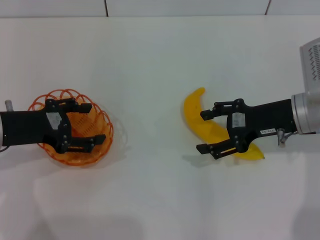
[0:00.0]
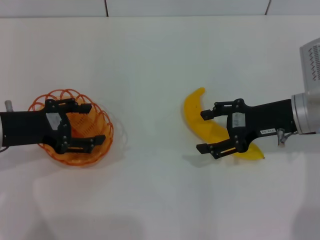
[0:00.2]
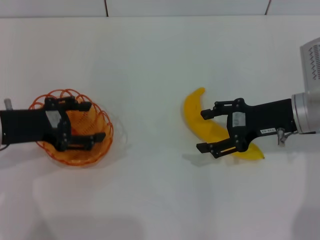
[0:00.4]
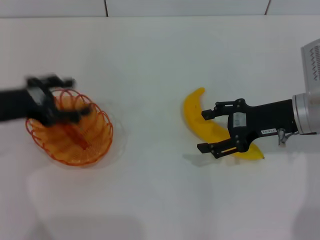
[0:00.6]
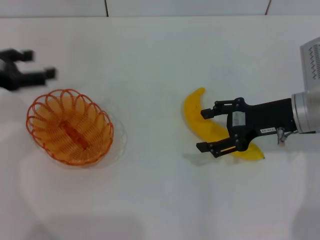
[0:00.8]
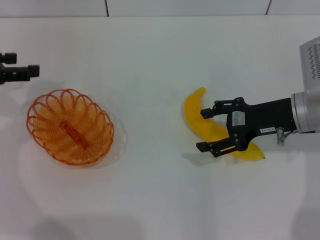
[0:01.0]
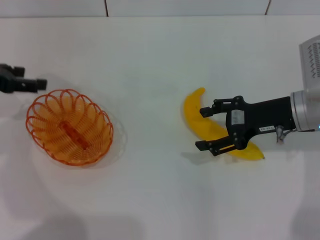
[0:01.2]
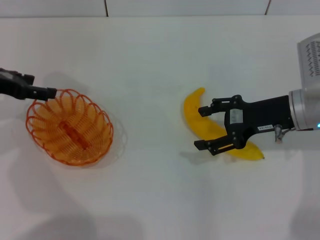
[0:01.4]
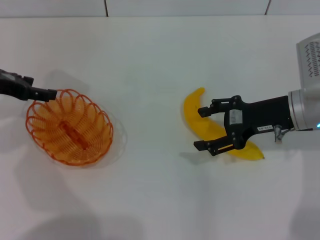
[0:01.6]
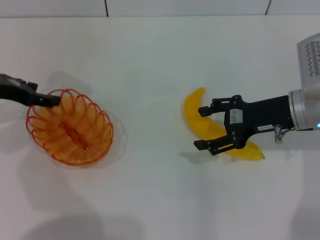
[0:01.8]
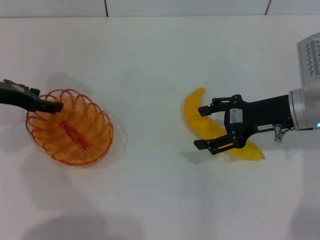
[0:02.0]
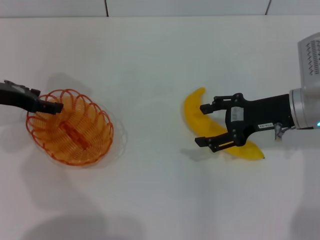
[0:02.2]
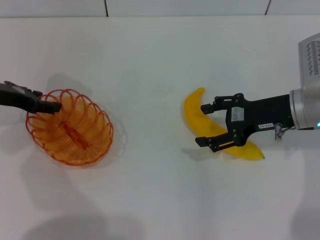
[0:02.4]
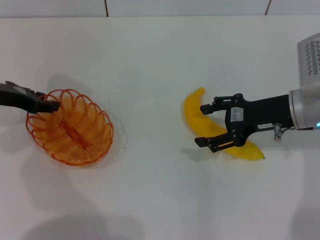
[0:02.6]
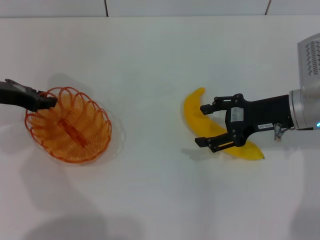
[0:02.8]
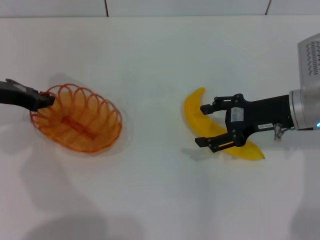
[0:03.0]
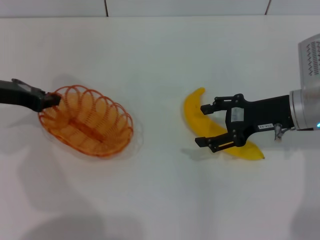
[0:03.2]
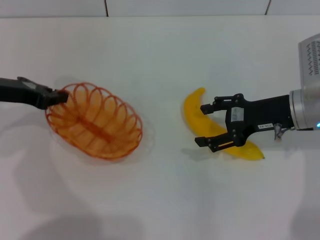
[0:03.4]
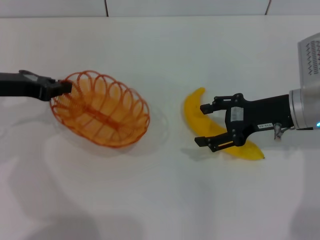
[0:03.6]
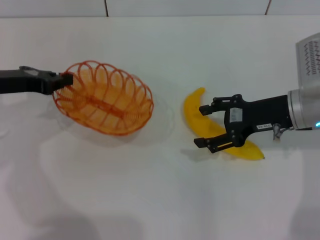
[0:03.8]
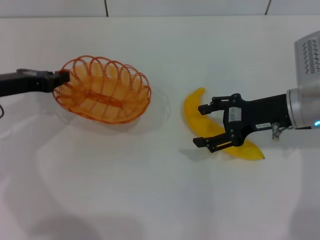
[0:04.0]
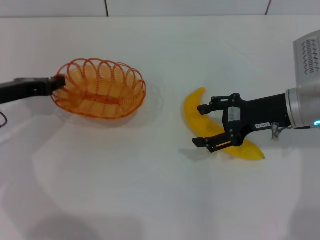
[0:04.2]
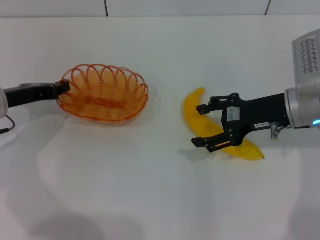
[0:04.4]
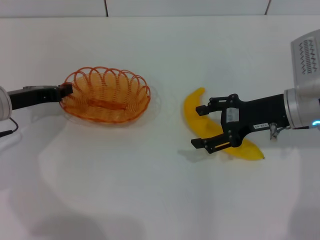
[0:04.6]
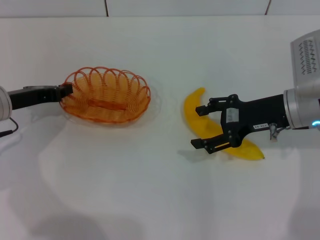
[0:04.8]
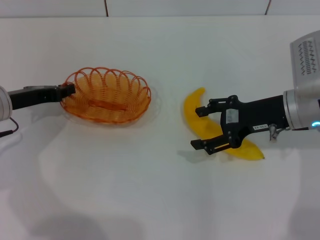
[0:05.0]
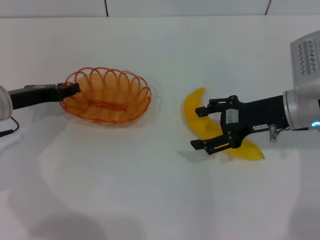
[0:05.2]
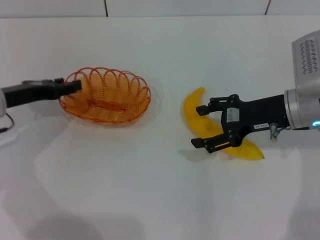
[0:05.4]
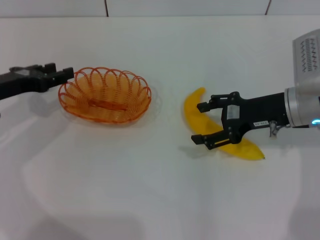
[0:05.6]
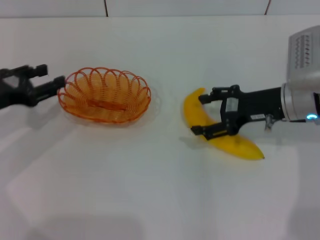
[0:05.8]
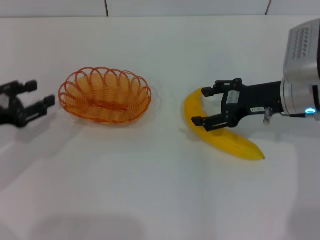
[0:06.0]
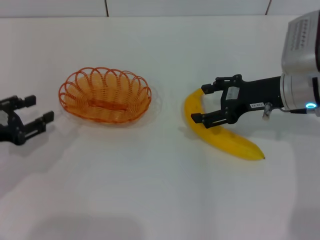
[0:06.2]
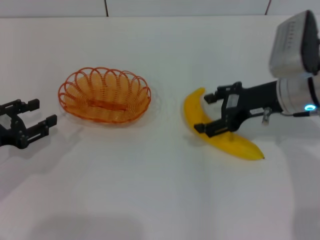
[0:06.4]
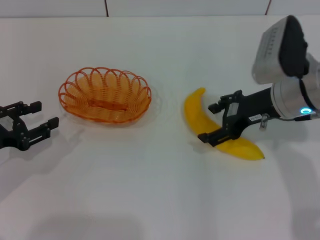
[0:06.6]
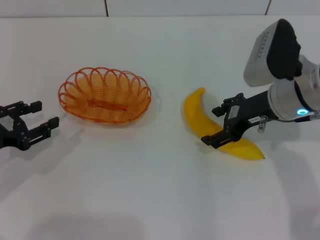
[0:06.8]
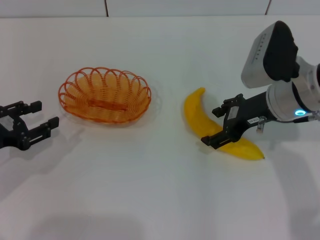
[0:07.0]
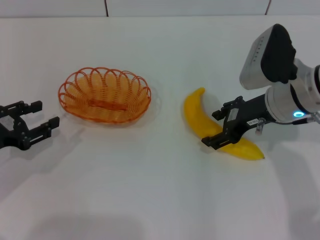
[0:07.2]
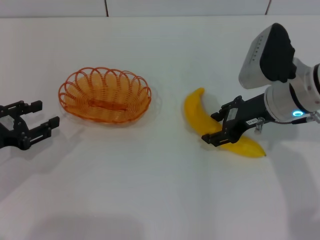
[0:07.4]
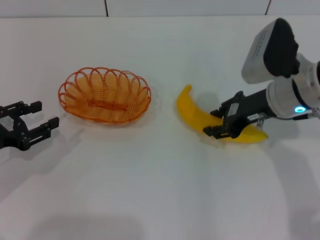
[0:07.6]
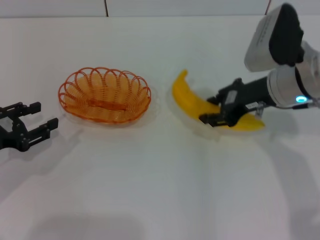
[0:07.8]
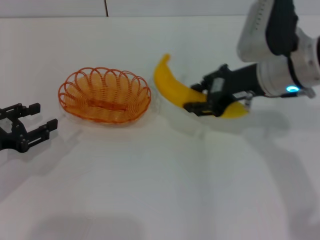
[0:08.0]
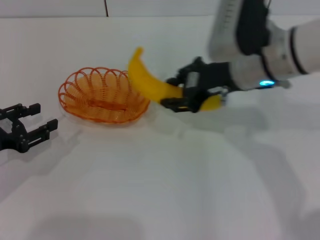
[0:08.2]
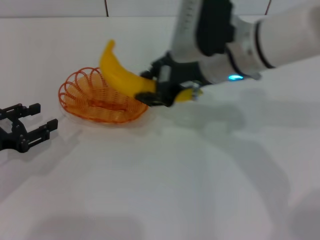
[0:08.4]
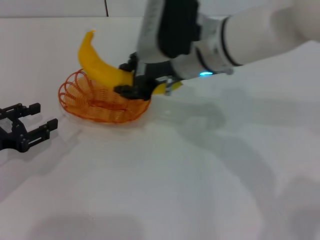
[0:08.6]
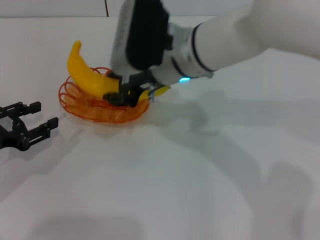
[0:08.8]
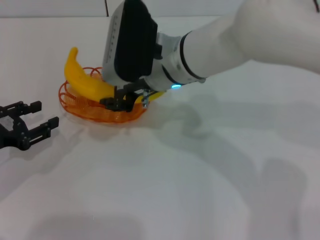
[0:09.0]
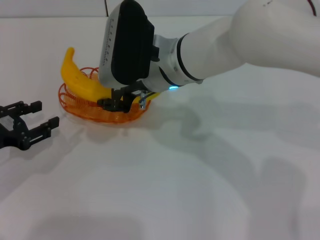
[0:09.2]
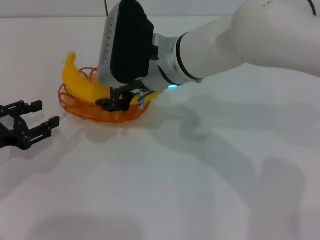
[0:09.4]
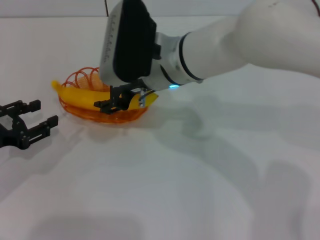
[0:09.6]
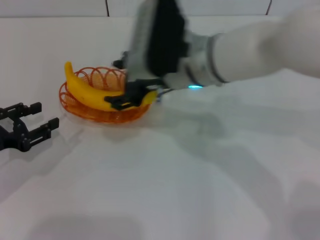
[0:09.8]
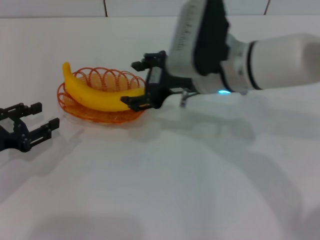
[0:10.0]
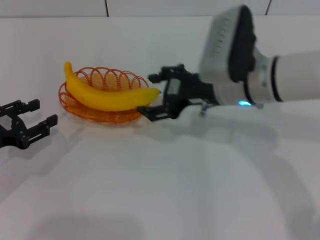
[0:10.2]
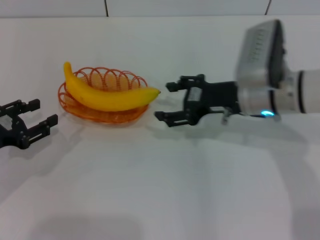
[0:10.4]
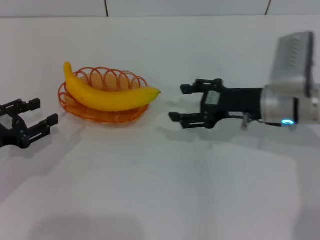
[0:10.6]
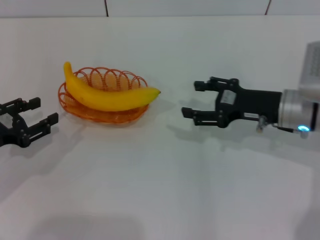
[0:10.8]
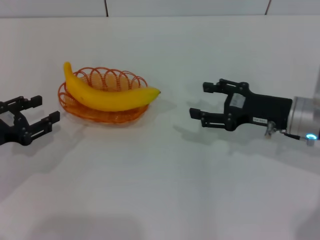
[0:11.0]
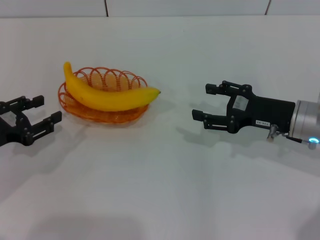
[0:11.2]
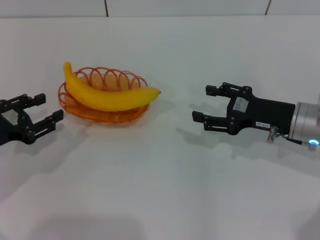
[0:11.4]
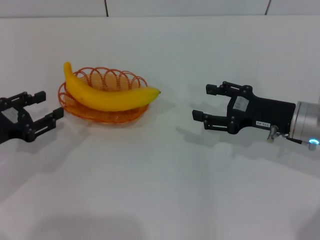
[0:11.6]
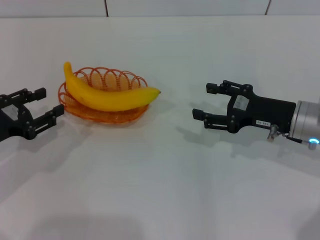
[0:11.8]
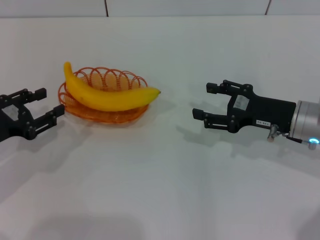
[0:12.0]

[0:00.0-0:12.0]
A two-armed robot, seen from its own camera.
Step, 0:00.0 to 0:03.6: Pick up the basket with the left gripper.
Step, 0:03.8 to 0:05.6: Place the basket in the center of view with the left gripper.
Step, 0:05.8 to 0:07.8: Pick up the banana with the right gripper.
Step, 0:08.0 to 0:09.8: Place the banana into the basket with the right gripper.
0:00.0 to 0:01.6: The left gripper moves forward, approximately 10 cm.
0:01.6 to 0:03.0: The left gripper closes up.
0:04.4 to 0:06.0: The left gripper shifts approximately 5 cm backward, and opens its fingers.
0:06.0 to 0:07.6: The right gripper closes.
0:07.6 to 0:09.0: The right gripper travels to the left by approximately 15 cm, and closes its fingers.
0:09.0 to 0:10.4: The right gripper travels to the right by about 15 cm, and opens up.
0:10.4 to 0:12.0: The right gripper travels to the right by approximately 10 cm.

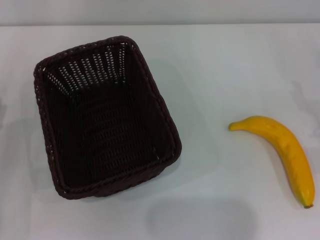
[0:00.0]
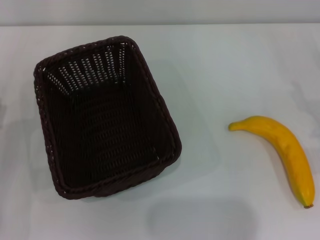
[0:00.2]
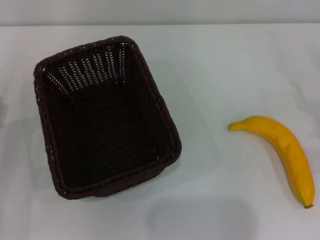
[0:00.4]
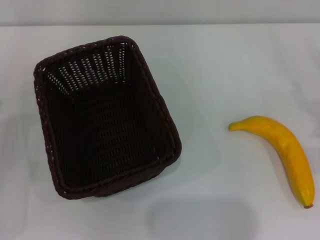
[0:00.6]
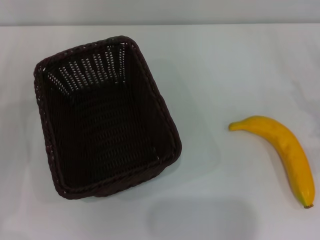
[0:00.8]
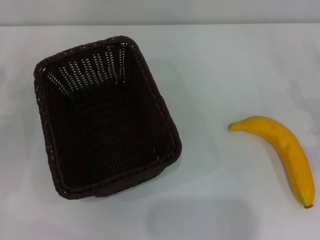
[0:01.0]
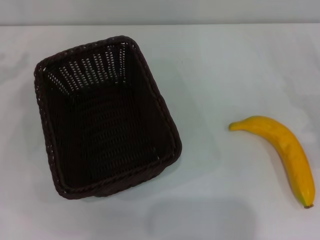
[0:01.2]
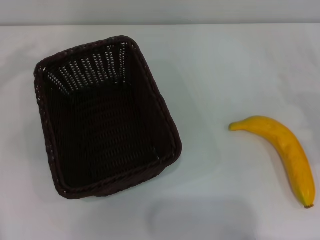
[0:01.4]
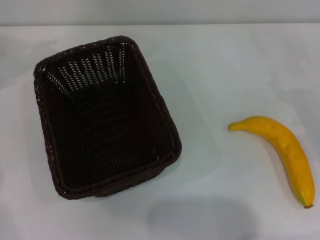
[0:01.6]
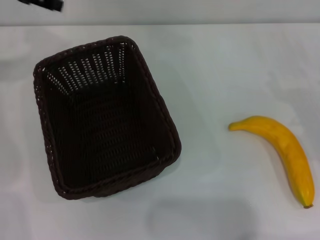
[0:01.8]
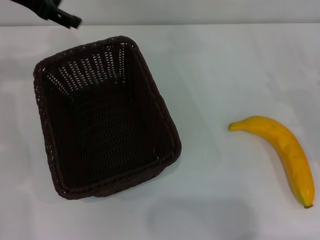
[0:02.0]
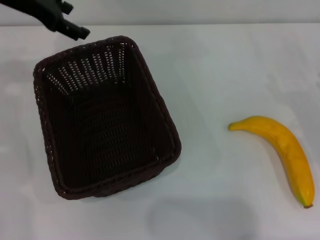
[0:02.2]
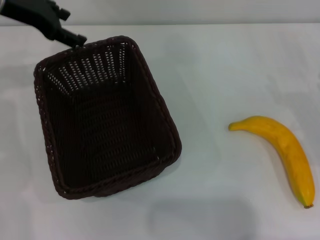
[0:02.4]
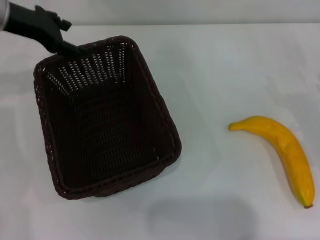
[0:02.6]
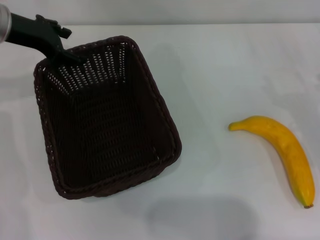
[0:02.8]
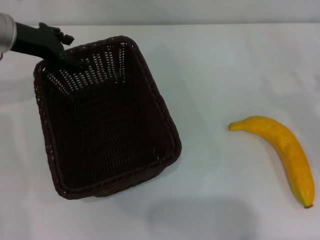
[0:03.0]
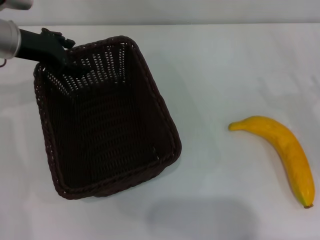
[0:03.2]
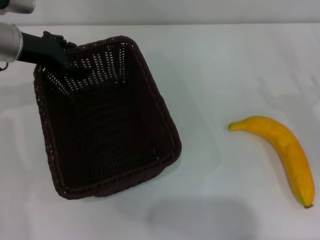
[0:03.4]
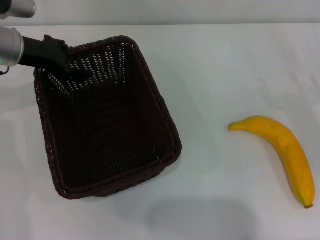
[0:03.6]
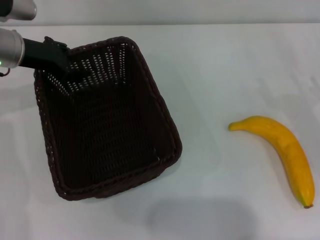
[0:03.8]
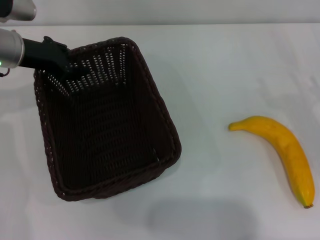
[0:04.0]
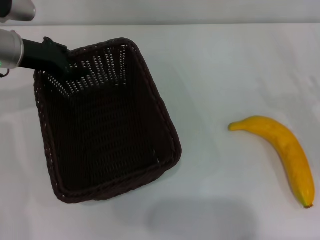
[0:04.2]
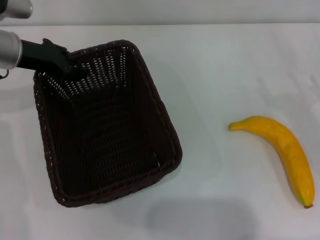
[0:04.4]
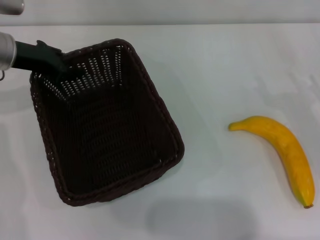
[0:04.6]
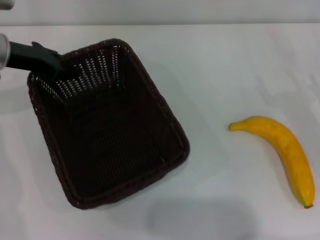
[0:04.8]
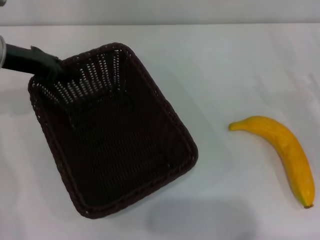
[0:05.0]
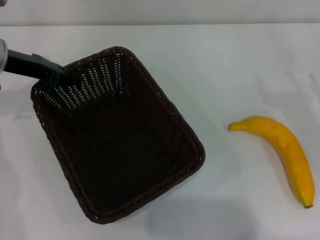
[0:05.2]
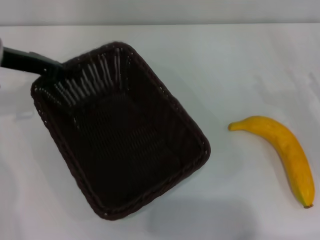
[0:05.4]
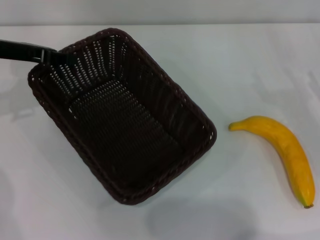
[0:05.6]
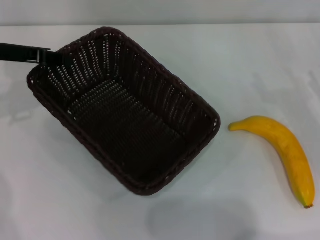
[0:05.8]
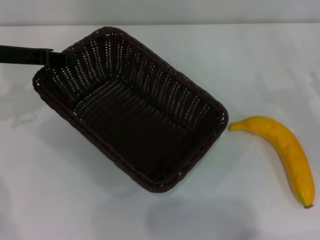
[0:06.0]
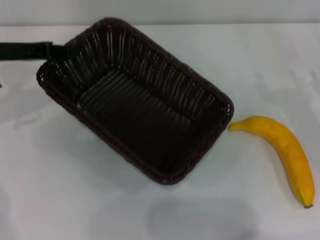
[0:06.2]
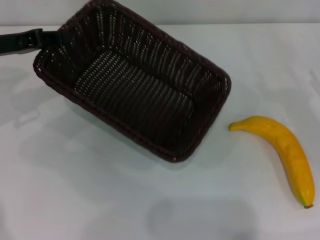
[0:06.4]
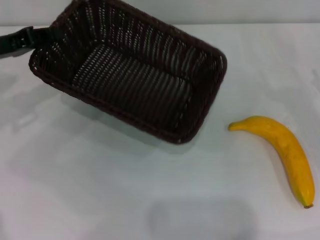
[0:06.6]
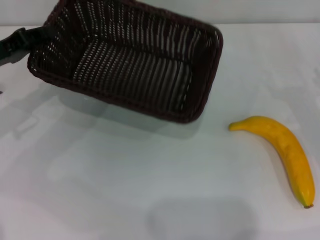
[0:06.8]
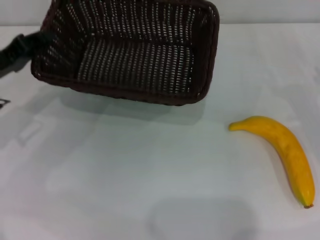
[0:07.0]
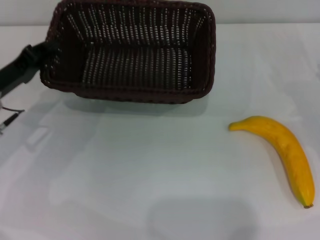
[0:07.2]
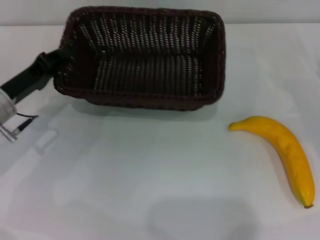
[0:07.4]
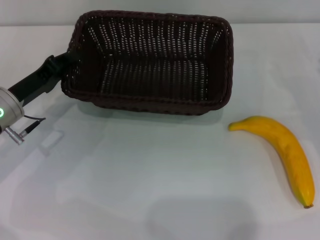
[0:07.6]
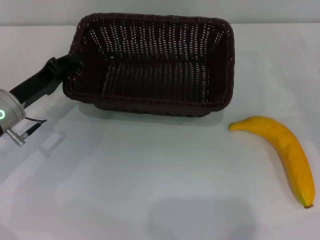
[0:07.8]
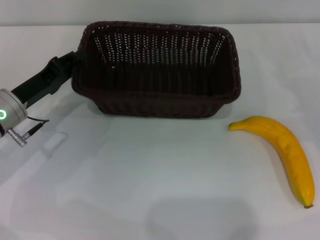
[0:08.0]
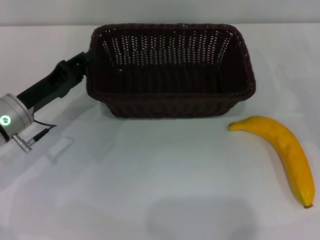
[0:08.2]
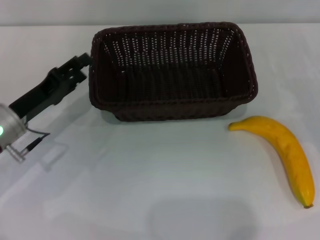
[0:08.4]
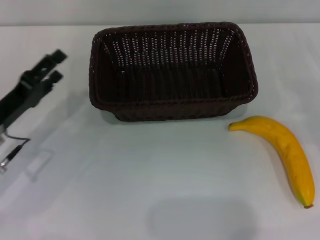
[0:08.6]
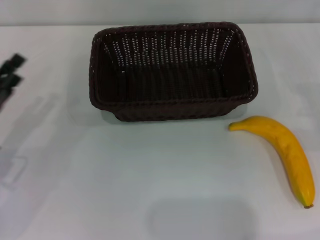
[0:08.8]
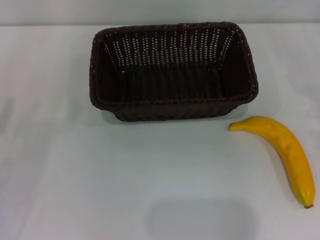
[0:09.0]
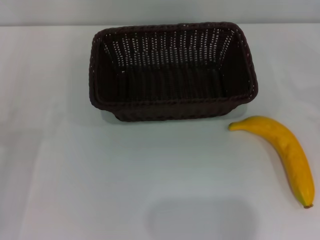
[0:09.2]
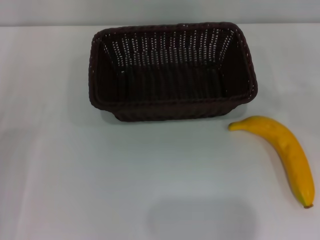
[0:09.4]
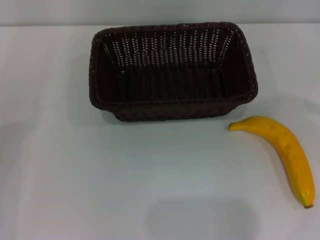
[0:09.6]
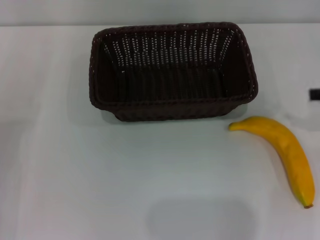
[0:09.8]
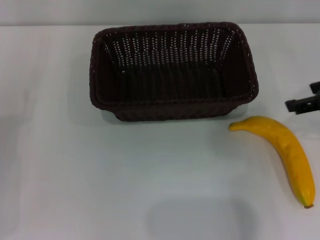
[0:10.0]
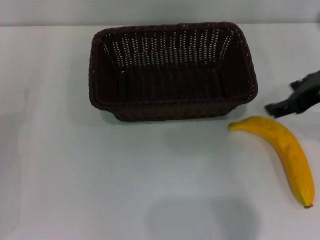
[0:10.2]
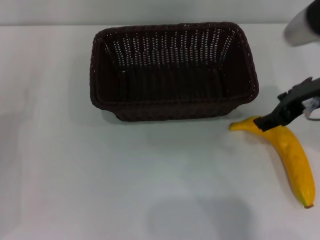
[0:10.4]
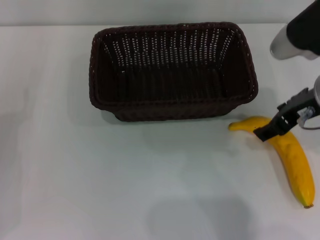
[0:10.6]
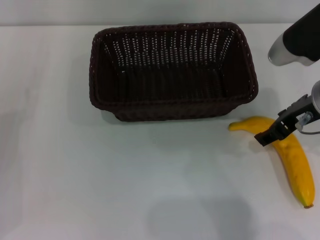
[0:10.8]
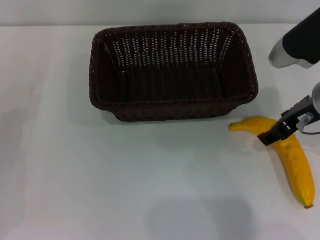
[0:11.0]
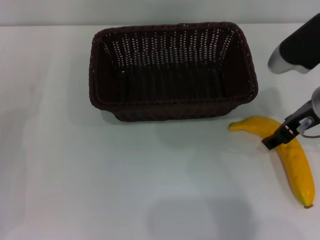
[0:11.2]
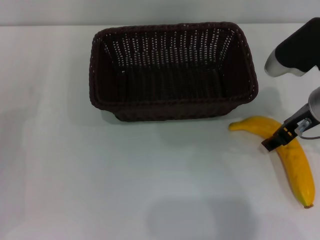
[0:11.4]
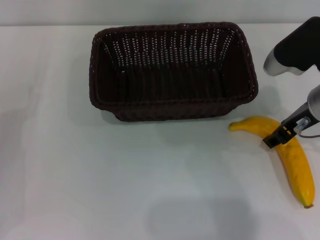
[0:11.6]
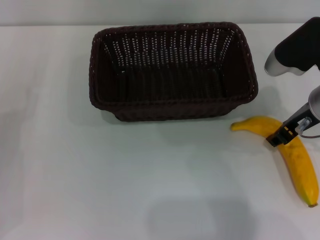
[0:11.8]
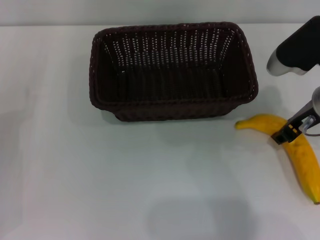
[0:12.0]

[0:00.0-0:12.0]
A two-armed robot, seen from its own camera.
Step, 0:00.0 to 0:05.4: Pick up the dark basket with the left gripper.
Step, 0:05.6 to 0:08.2: Place the dark basket in the center of view with the left gripper.
0:00.0 to 0:01.6: The left gripper moves upward and forward, some 30 cm.
0:01.6 to 0:03.0: The left gripper heads downward and to the right, covering approximately 10 cm.
0:03.0 to 0:04.4: The left gripper closes its fingers.
0:04.4 to 0:06.0: The left gripper changes place by some 5 cm.
0:06.0 to 0:07.6: The left gripper goes about 10 cm downward and backward.
0:07.6 to 0:09.0: The left gripper shifts some 15 cm backward and to the left, and opens up. The right gripper changes place by approximately 5 cm.
0:09.0 to 0:10.4: The right gripper travels to the left and upward by about 25 cm.
0:10.4 to 0:12.0: The right gripper is displaced downward by roughly 5 cm, and closes its fingers.
